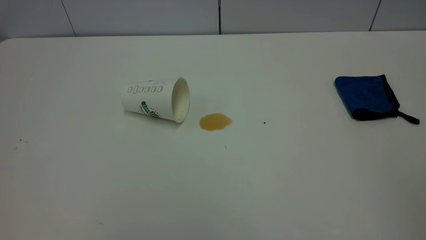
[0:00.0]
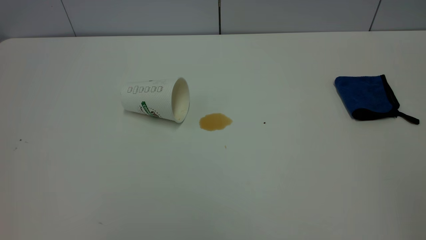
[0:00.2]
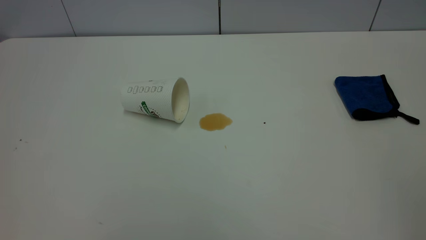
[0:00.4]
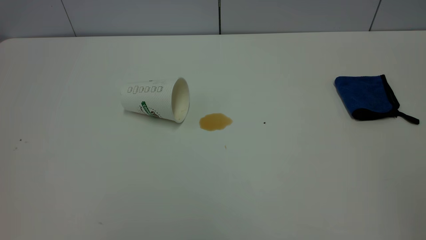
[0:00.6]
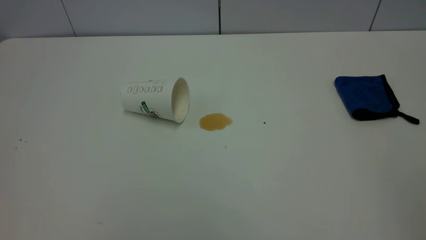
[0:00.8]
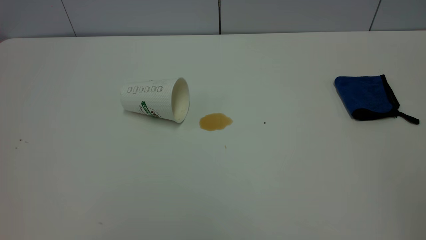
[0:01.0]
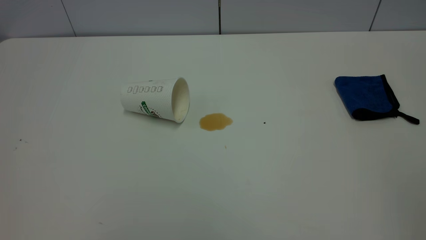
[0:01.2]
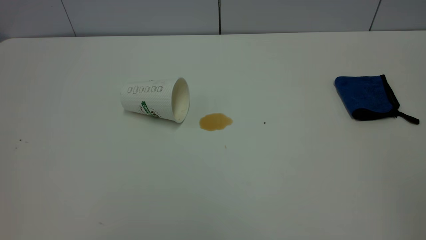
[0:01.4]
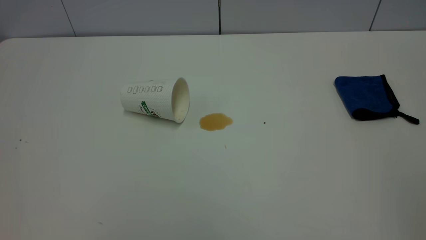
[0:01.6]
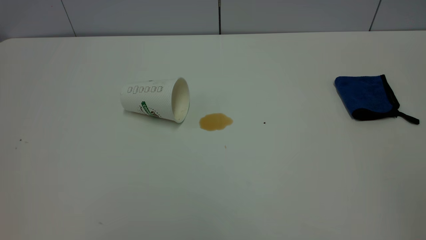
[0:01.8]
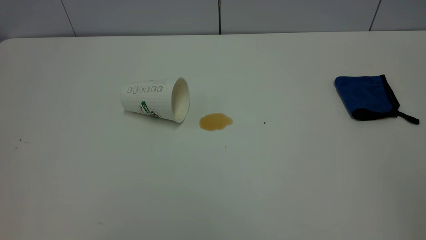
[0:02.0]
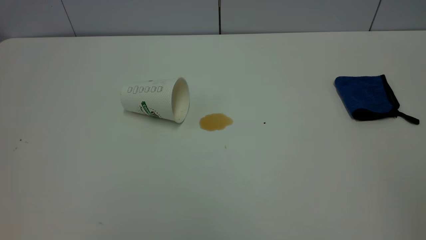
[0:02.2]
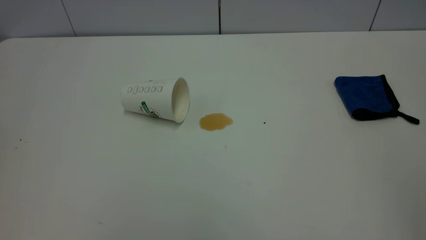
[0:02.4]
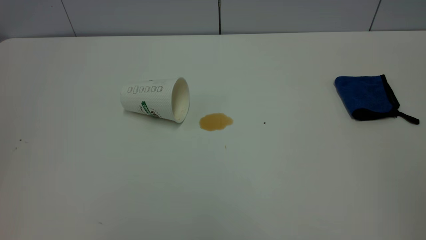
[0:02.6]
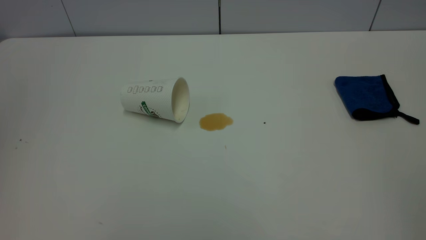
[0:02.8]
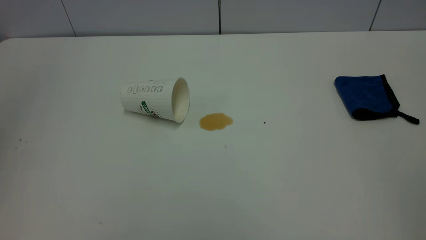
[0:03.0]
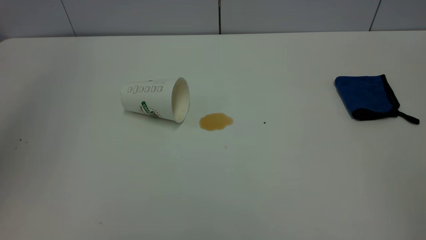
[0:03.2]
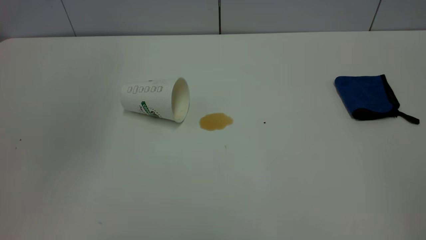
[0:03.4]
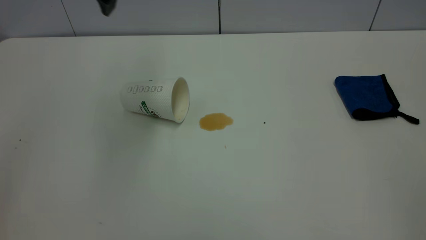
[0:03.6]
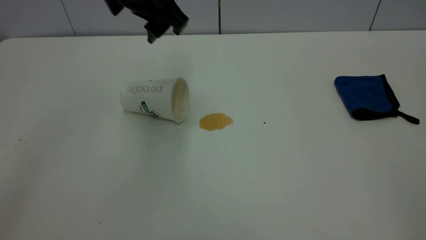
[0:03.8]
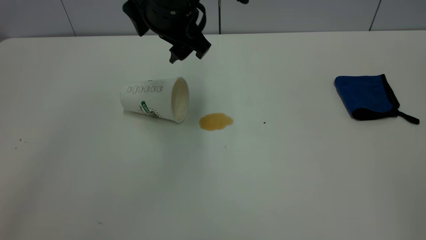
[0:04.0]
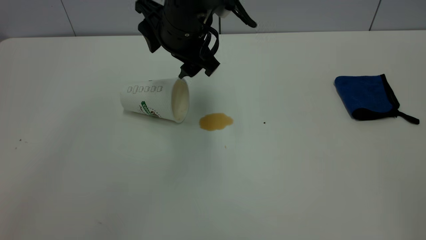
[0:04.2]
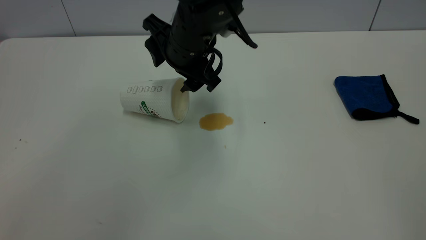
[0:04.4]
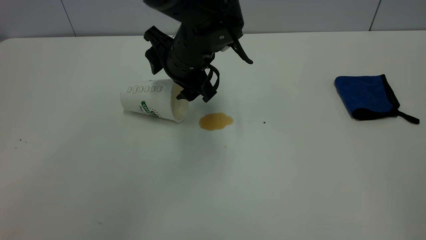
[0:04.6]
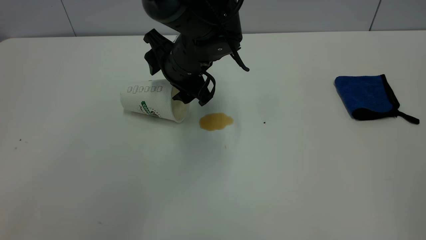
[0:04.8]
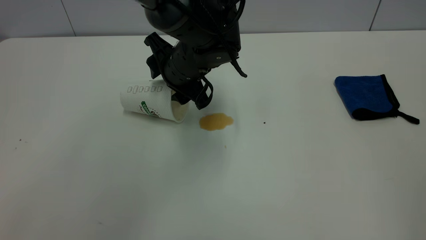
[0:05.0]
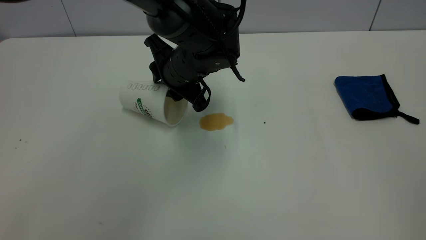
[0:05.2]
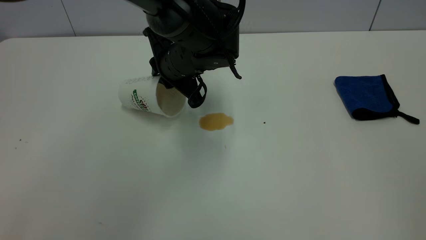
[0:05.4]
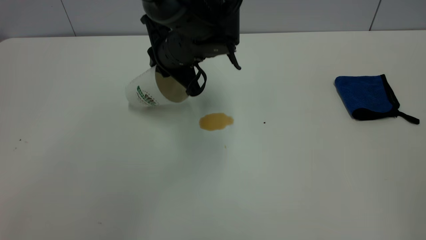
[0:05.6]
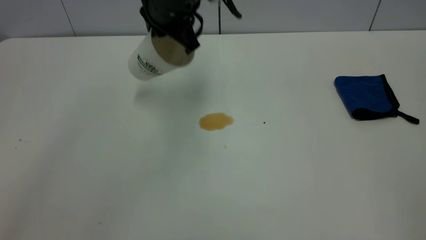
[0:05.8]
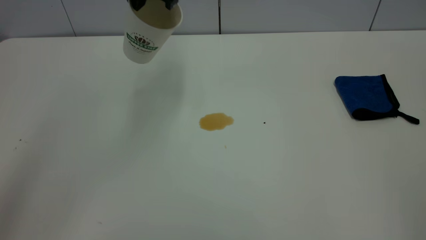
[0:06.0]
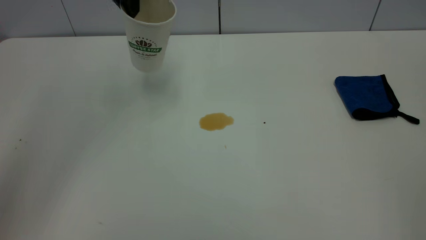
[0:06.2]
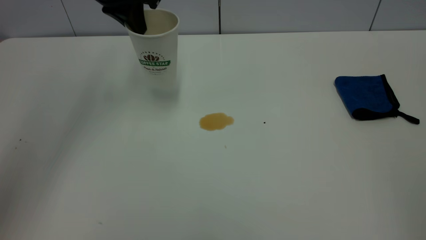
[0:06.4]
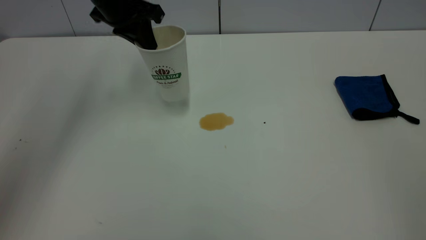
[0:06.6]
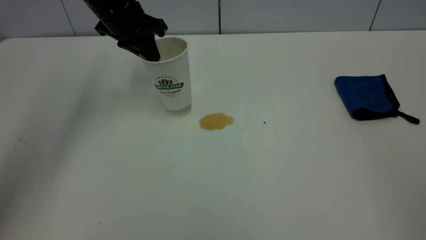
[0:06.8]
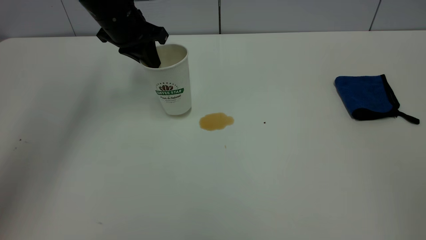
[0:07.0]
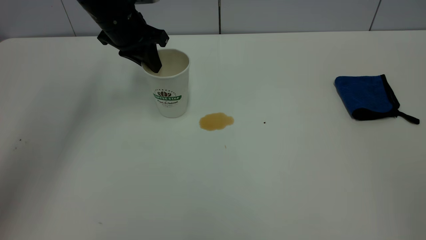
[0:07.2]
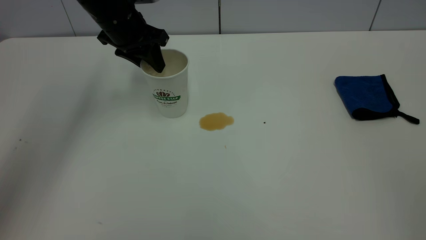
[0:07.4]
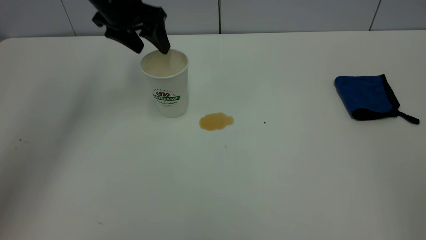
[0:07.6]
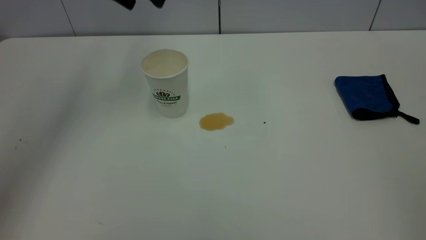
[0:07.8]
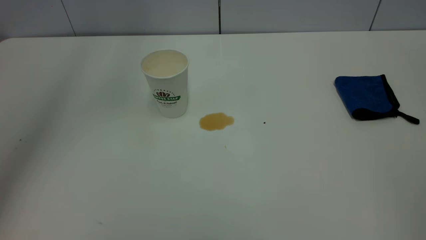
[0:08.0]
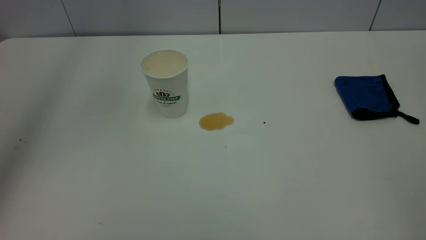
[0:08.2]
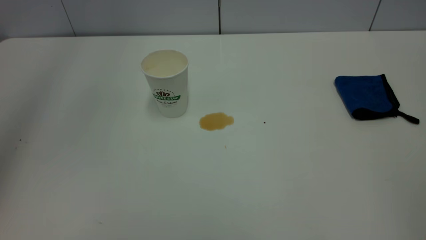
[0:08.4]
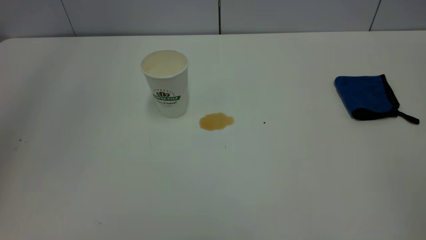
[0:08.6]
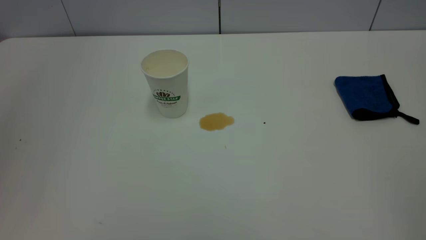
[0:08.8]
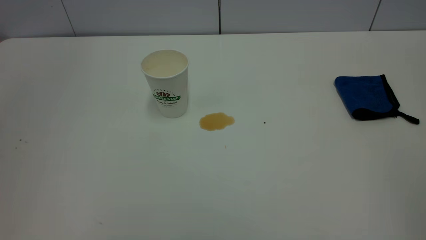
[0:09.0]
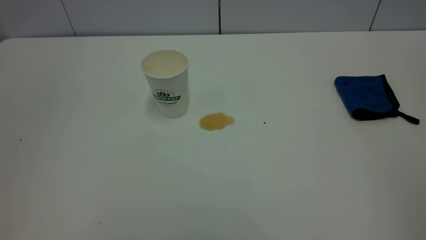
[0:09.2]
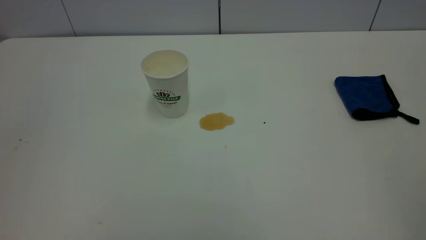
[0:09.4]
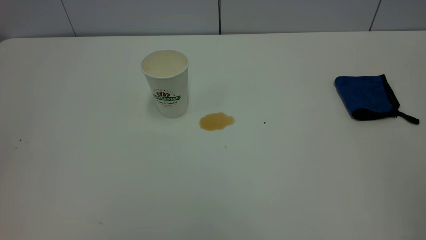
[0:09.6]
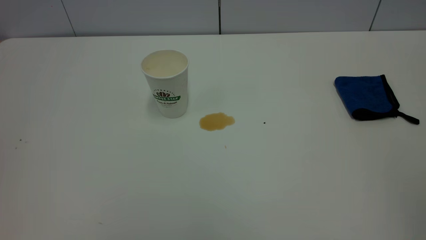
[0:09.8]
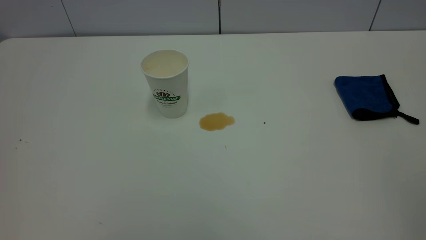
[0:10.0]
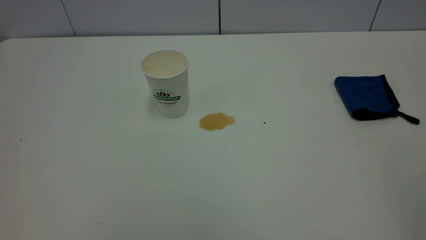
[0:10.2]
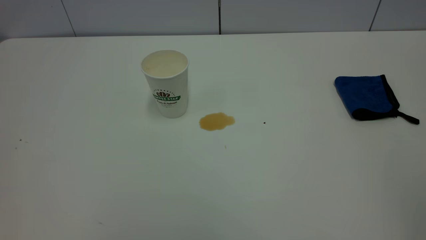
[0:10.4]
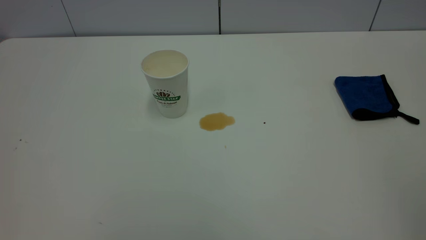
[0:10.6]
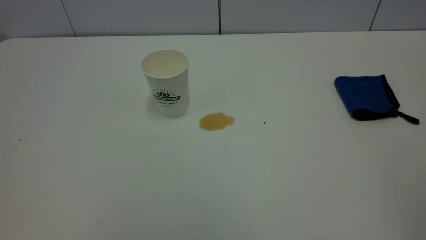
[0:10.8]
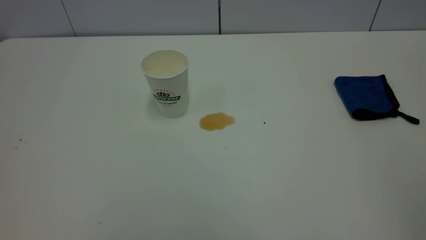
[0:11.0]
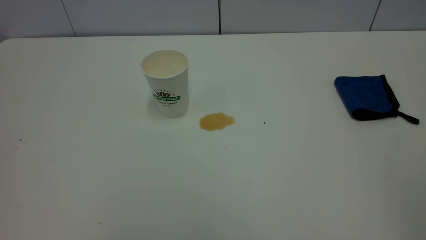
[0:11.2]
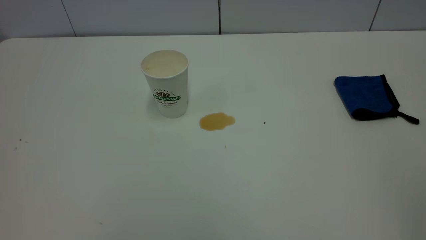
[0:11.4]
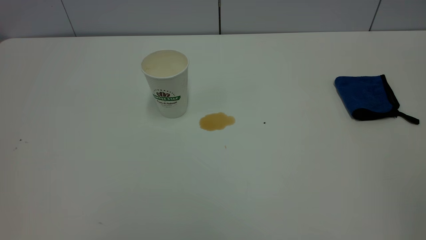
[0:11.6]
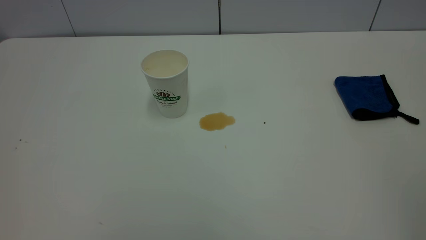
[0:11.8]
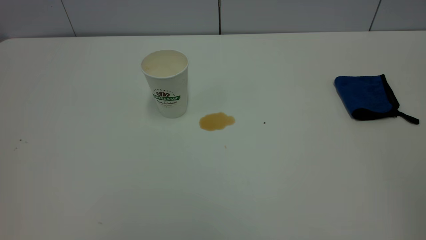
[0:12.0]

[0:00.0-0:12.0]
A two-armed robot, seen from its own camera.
Task of the whole recording: the left gripper pick up the fallen cup and place it upright, the right gripper grasp the blue rag and wipe the tea stain on the table, the right gripper put the blue rag back in its original position.
Step, 0:00.0 to 0:07.6: Stand the paper cup upright.
0:00.0 to 0:01.6: The two grippers keep their place.
0:03.0 to 0:04.4: The left gripper goes roughly 40 cm to the right, downward and forward.
0:04.4 to 0:06.0: The left gripper is displaced upward, to the left and forward by approximately 15 cm, and closes its fingers.
0:06.0 to 0:07.6: The left gripper is displaced to the left and downward by about 10 cm, and opens up.
0:07.6 to 0:09.0: The left gripper heads backward and upward, covering about 40 cm, and closes.

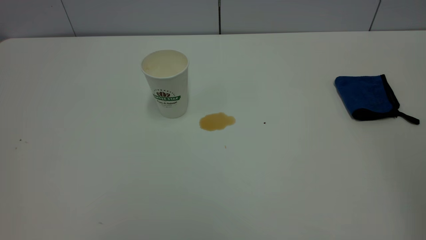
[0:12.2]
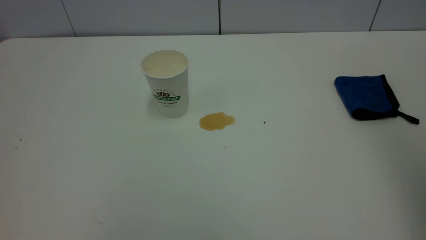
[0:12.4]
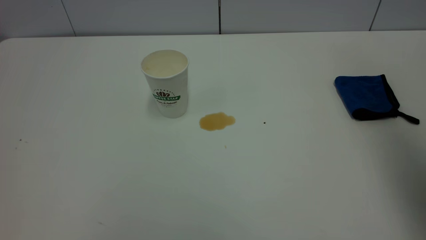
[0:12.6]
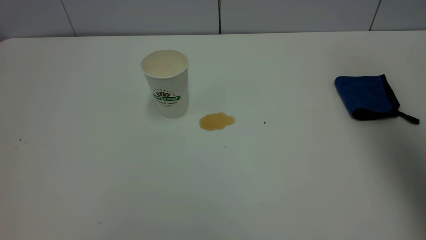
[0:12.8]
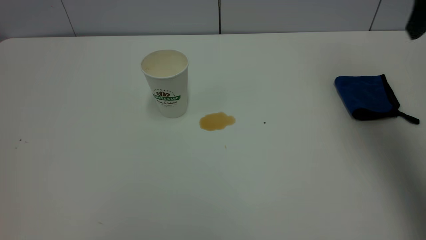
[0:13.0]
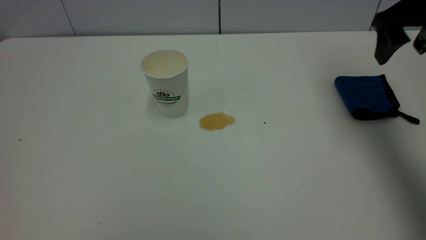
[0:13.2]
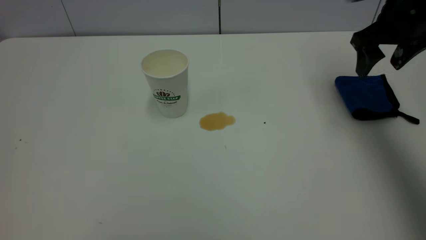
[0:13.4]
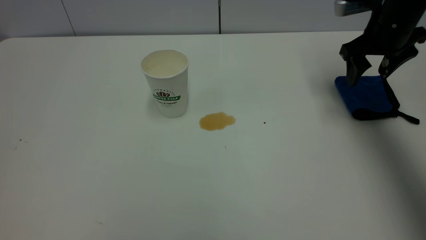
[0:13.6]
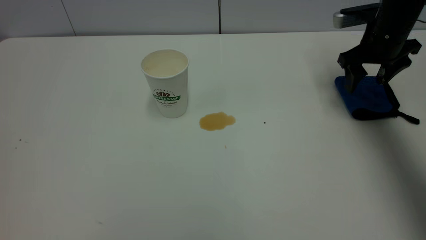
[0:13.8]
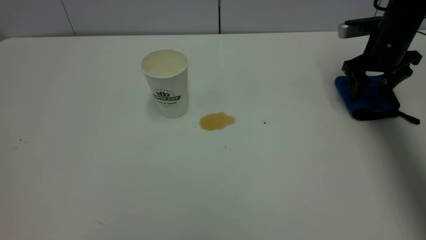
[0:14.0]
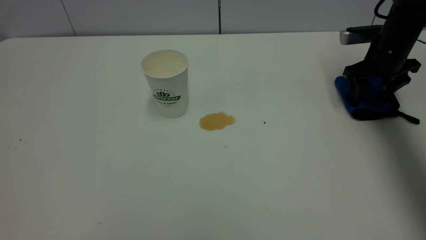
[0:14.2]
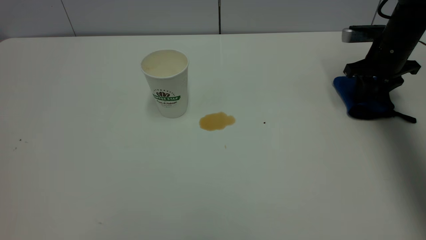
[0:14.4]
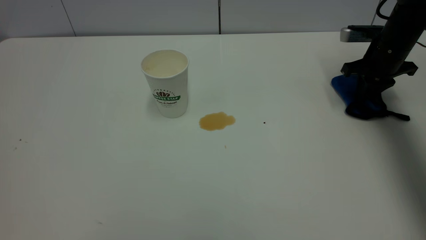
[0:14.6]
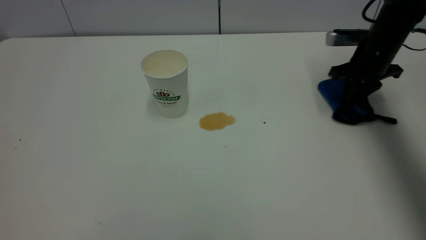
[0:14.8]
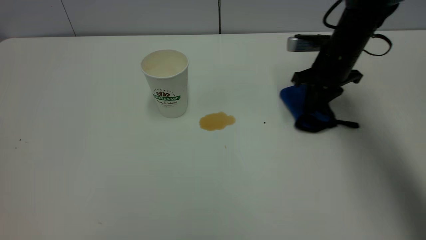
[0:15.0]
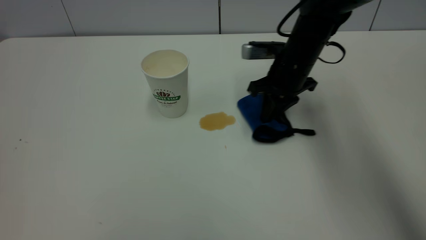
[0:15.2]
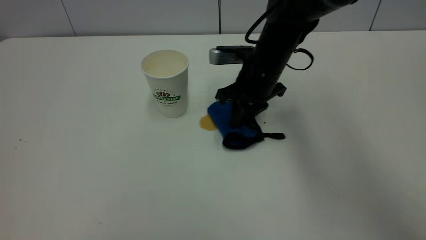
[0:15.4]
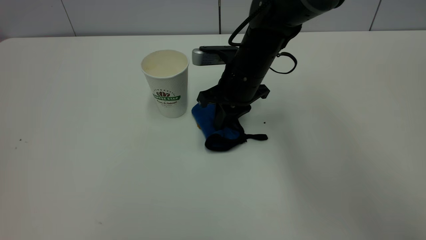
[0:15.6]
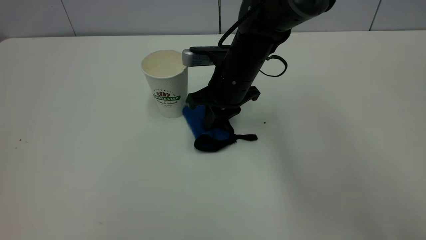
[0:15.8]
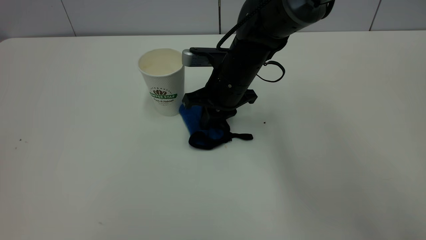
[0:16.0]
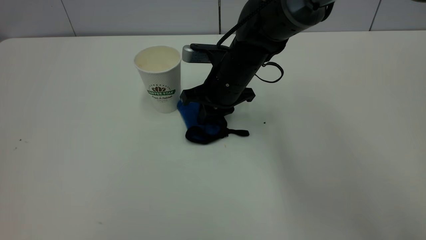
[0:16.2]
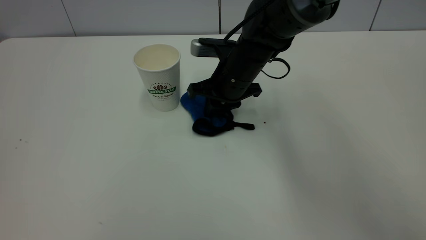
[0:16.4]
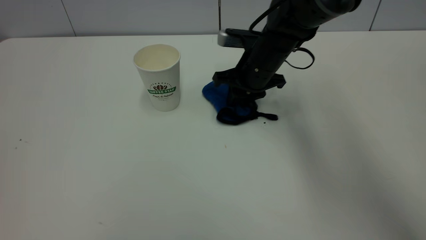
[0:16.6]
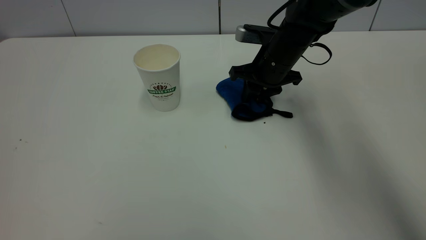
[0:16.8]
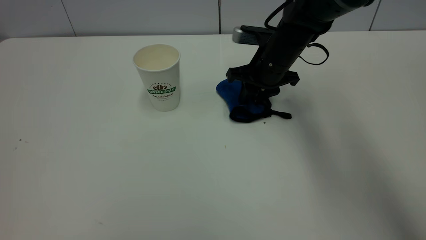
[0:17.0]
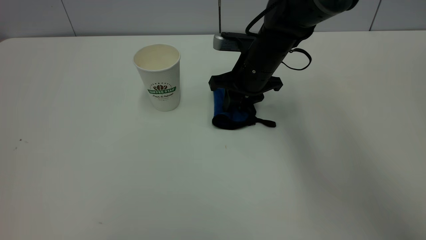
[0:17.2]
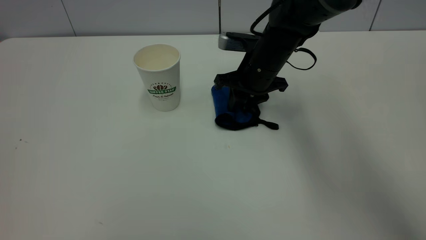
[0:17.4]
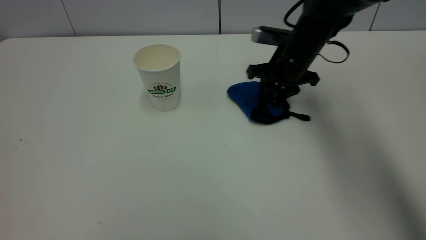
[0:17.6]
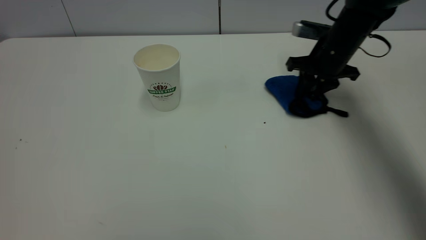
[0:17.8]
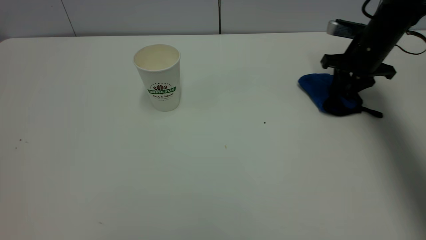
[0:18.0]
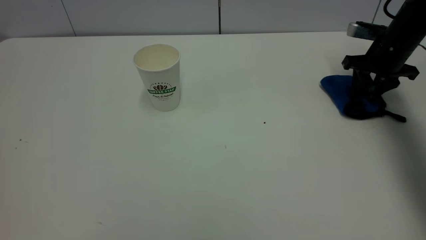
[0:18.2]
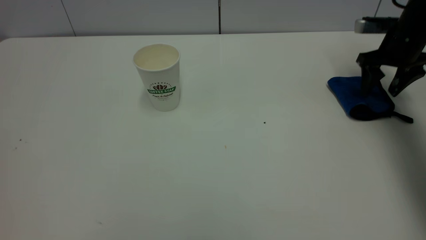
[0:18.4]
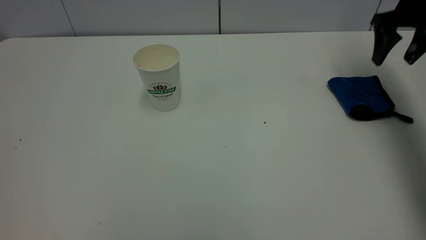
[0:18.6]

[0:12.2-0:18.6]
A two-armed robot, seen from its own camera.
Task of the whole recording: the left gripper pick up the fallen cup and place it upright, the right gripper grasp the blue rag and wipe the tea stain on the table, the right gripper put the blue rag back in its original position.
Step, 0:12.2 to 0:18.6: Wipe the stains off the table with a rag.
0:12.2 to 0:13.8: The right gripper goes roughly 50 cm forward and downward.
0:13.8 to 0:15.4: The right gripper moves to the left, about 20 cm, and closes up.
0:15.4 to 0:17.0: The right gripper reaches about 5 cm to the left, then returns, and opens up.
0:17.0 to 0:18.6: The right gripper moves to the right and upward, roughly 25 cm, and opens its fingers.
